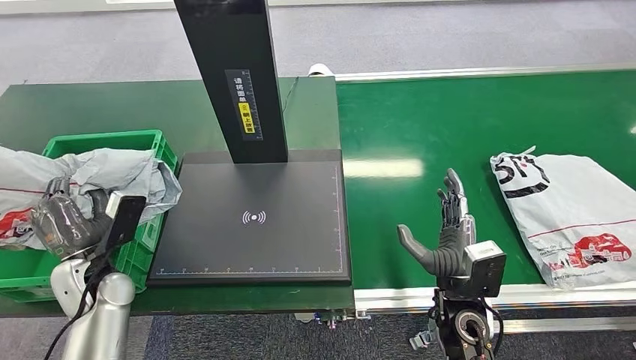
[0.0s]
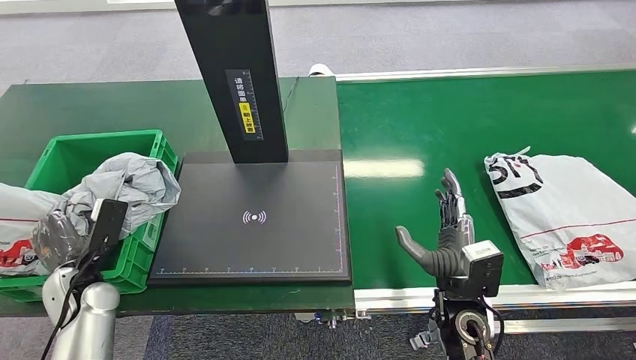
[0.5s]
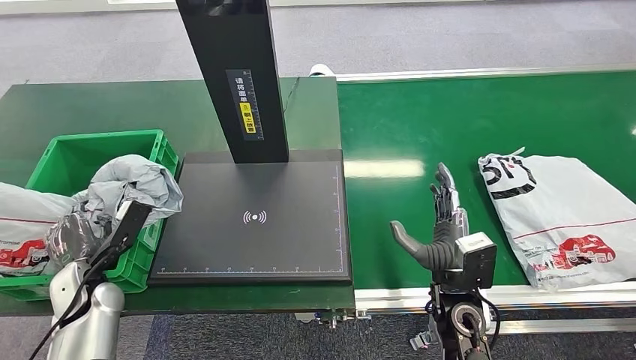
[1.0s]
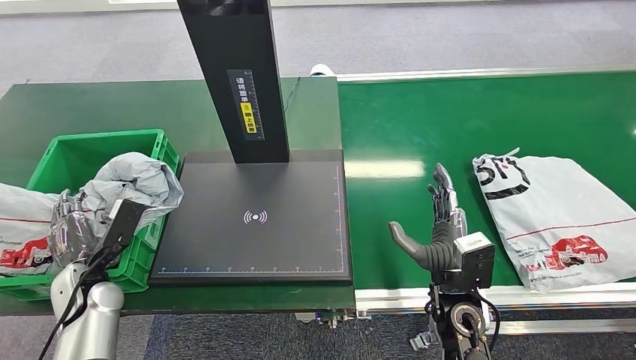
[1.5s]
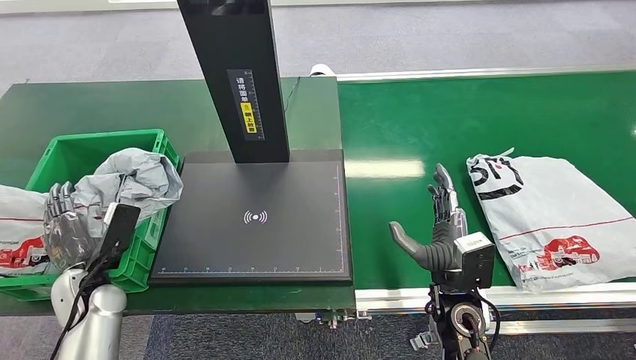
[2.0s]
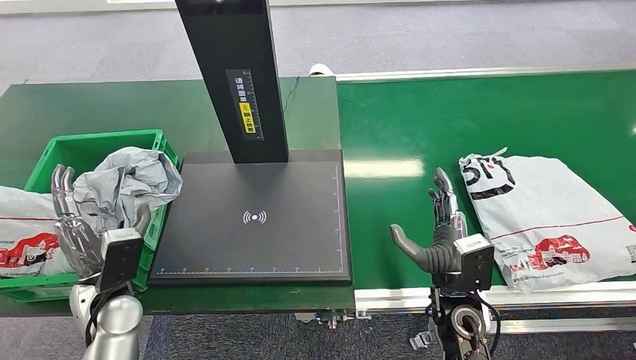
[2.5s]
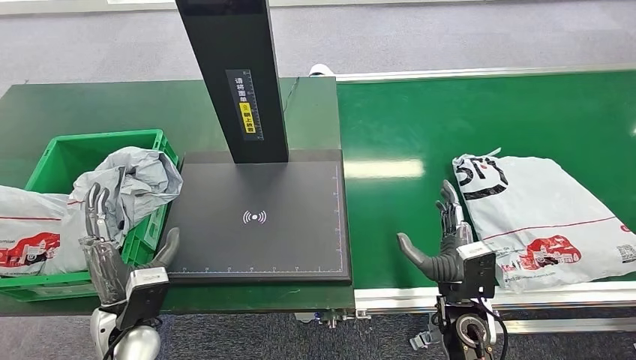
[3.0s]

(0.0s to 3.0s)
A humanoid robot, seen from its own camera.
Step, 0.0s - 2.5s: Place the package into the parcel locker.
1.5s - 3.0s: The left hand shifts roughly 15 cm to the right and backward.
